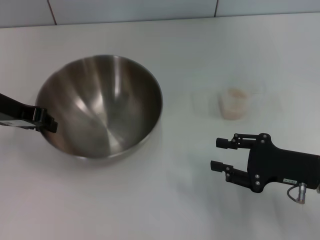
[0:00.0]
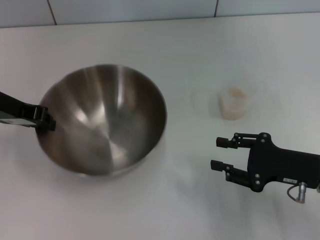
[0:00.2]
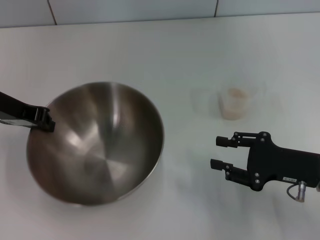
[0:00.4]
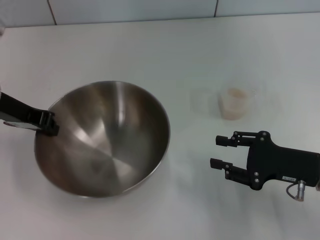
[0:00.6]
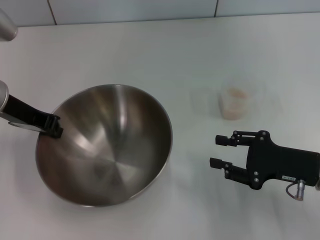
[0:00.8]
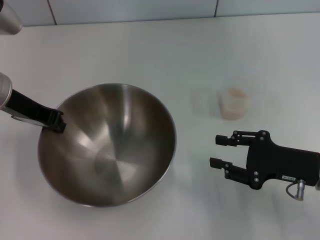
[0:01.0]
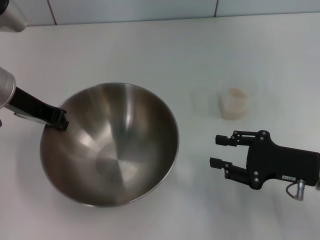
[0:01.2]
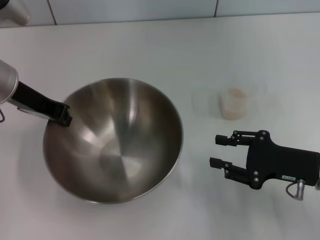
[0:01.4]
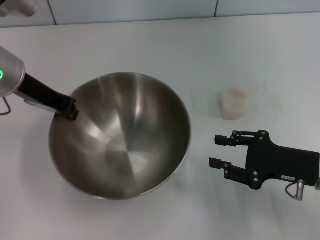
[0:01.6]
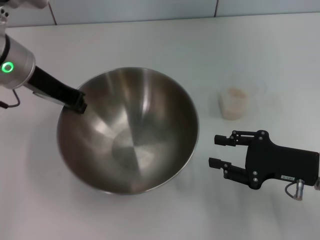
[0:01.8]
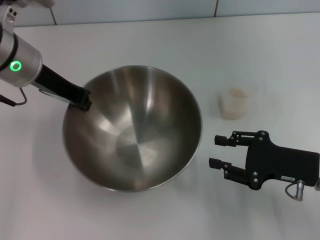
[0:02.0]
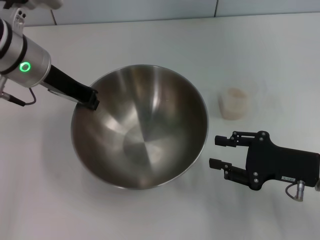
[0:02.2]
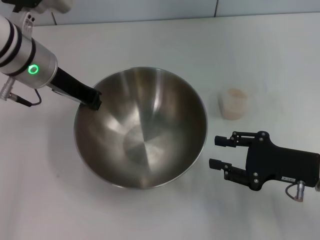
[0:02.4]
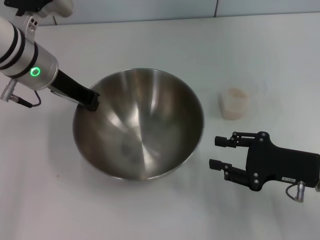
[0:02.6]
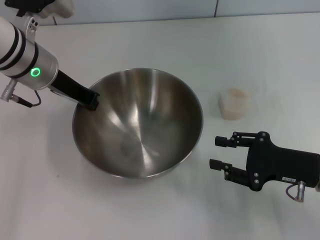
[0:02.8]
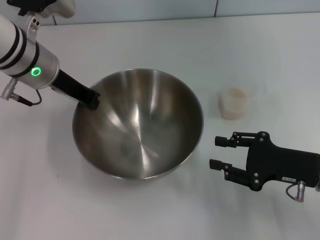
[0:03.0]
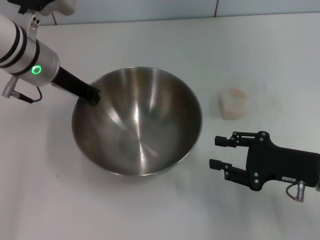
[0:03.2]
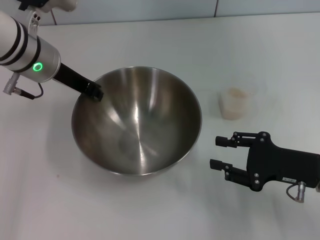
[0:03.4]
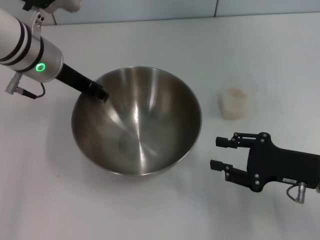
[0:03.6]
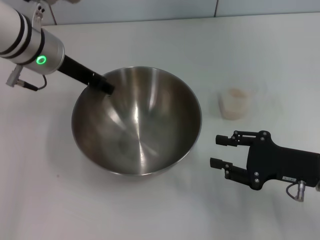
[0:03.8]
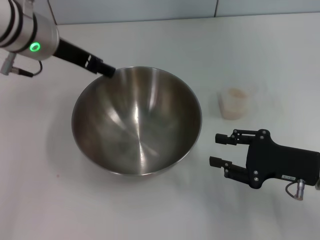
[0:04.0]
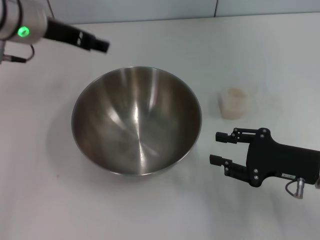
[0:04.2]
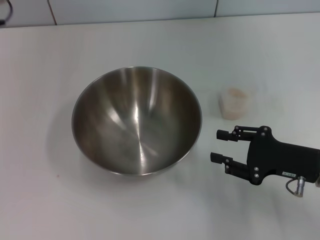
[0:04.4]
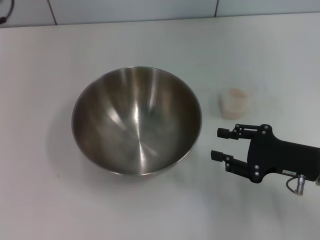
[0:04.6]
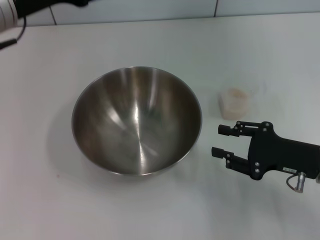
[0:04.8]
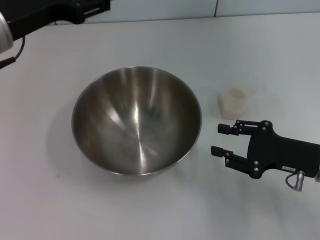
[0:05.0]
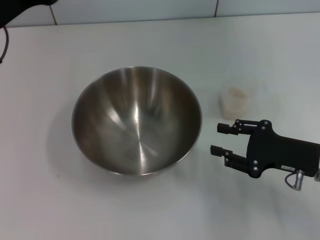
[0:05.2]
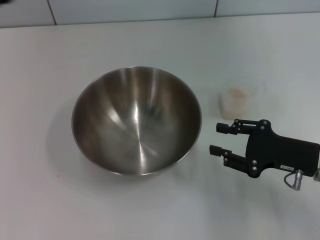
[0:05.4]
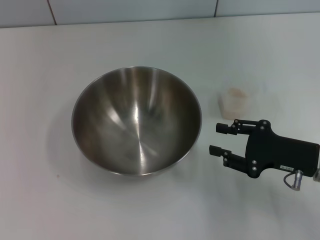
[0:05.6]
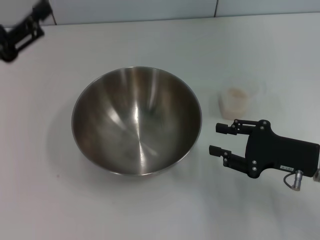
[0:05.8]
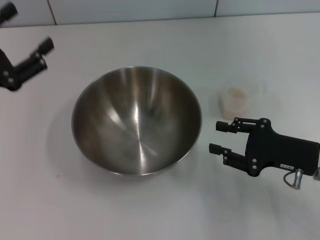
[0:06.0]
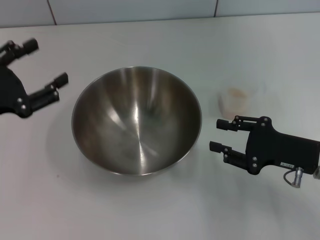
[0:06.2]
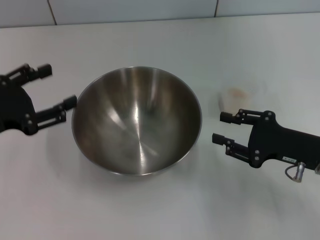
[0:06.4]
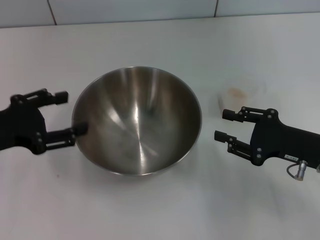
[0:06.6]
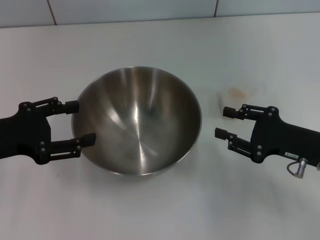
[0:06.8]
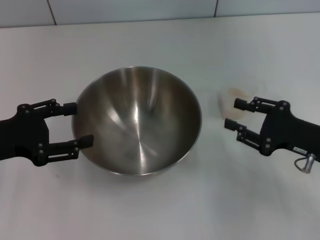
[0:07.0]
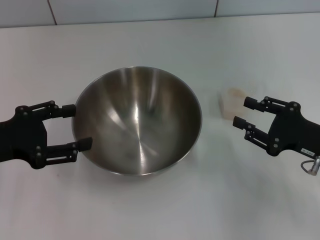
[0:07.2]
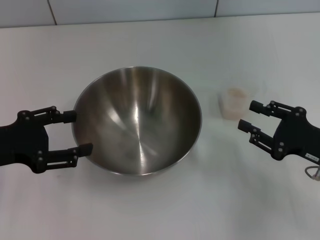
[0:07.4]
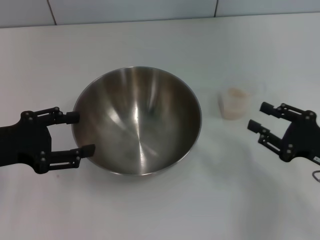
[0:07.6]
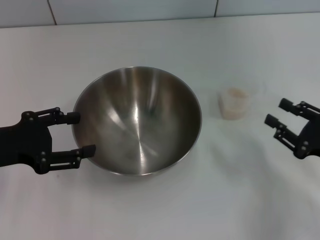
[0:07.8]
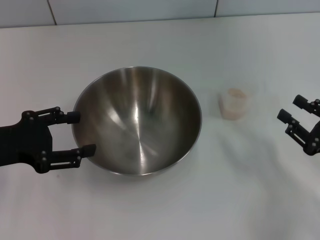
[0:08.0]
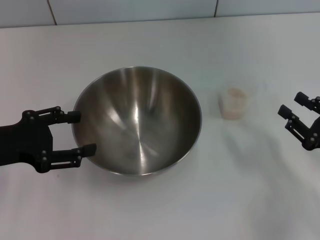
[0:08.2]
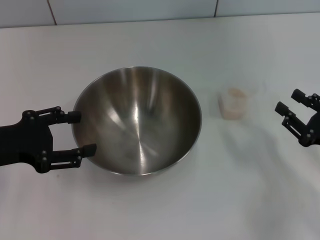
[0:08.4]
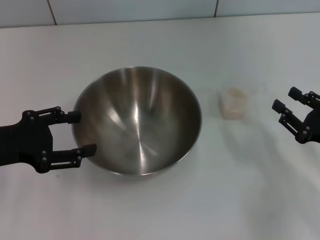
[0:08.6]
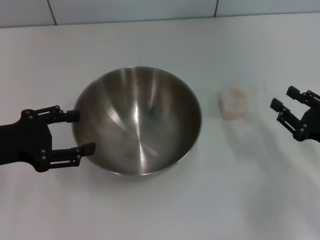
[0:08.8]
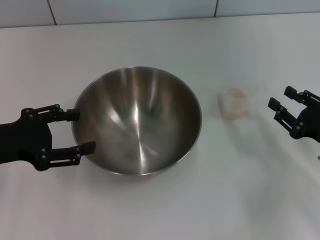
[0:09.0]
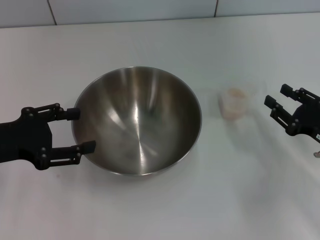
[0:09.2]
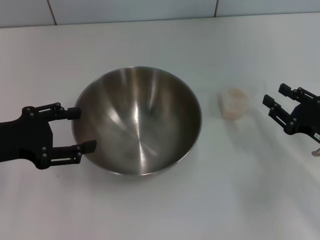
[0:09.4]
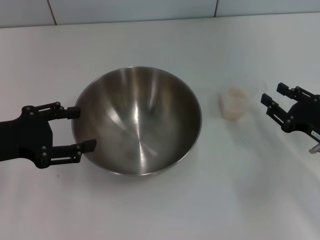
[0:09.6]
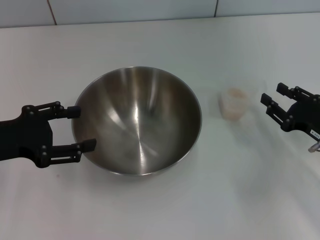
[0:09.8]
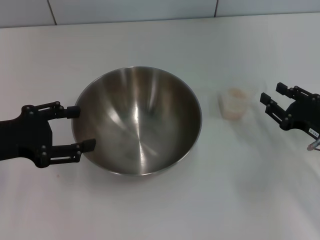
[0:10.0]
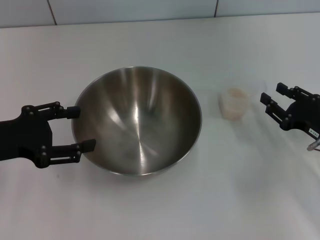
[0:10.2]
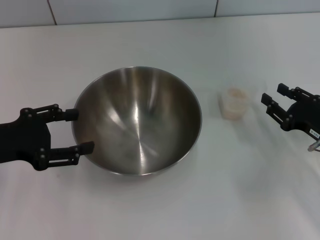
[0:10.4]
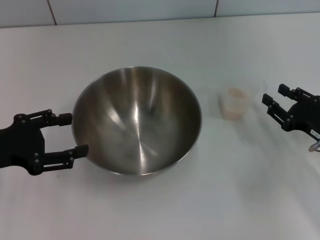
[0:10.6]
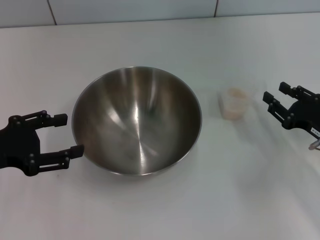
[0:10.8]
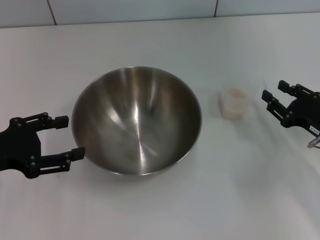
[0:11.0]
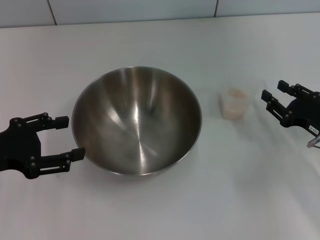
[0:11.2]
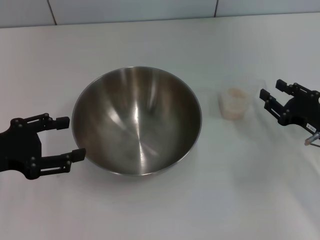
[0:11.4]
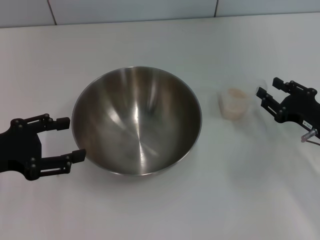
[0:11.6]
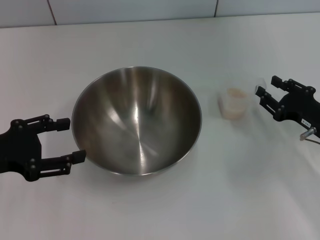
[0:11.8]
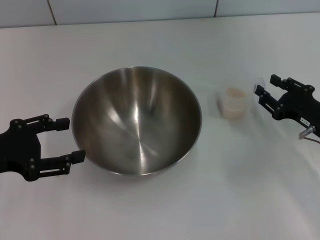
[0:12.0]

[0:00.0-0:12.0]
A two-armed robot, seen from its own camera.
Task of the whole recording: Place the bowl in the middle of the table with one hand and pour the rice from the grain cup into it with the other hand.
Step, 0:01.6 to 0:04.0: Place the bowl in the center of view with the left gripper.
0:00.0 to 0:01.6: The left gripper heads to the right, covering about 5 cm, and closes.
0:03.0 to 0:04.4: The left gripper travels upward by approximately 10 cm, and opens up.
0:04.4 to 0:06.0: The left gripper goes roughly 20 cm downward, backward and to the left.
0:07.6 to 0:10.4: There are only small adjustments of the grippers.
0:10.4 to 0:12.0: The grippers stay close to where they were, moving slightly.

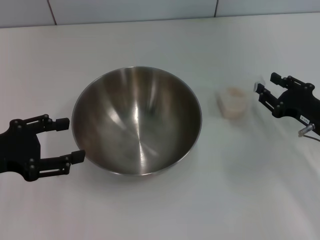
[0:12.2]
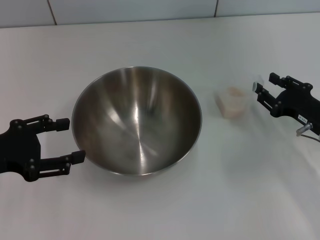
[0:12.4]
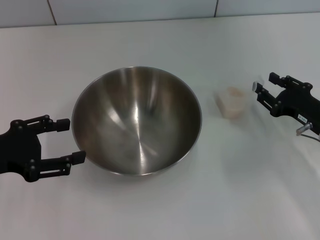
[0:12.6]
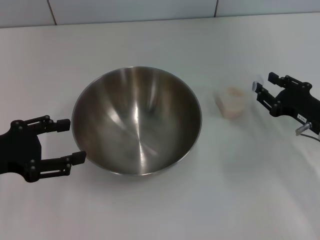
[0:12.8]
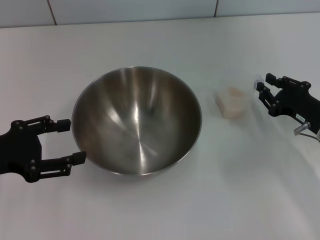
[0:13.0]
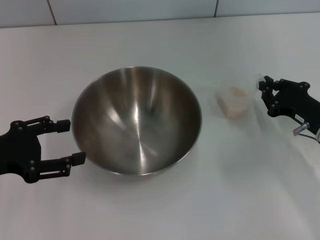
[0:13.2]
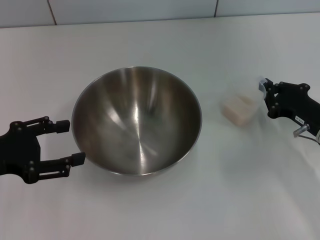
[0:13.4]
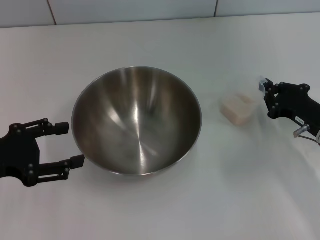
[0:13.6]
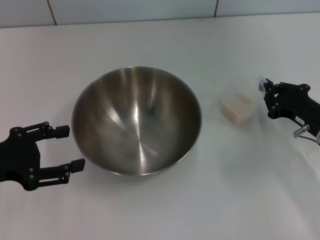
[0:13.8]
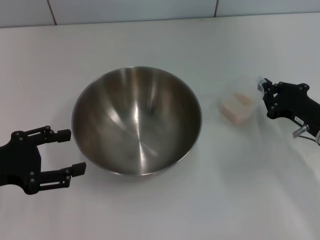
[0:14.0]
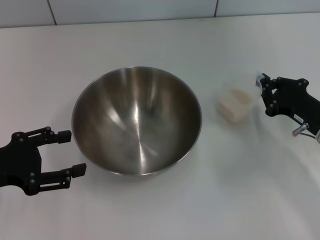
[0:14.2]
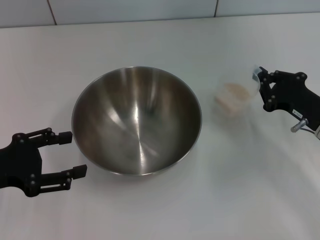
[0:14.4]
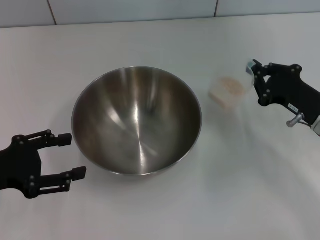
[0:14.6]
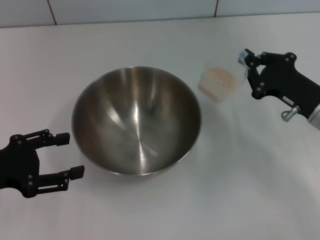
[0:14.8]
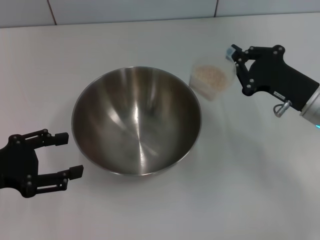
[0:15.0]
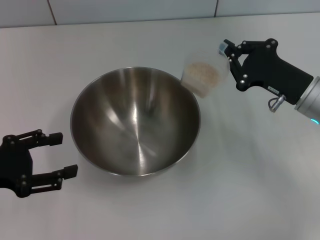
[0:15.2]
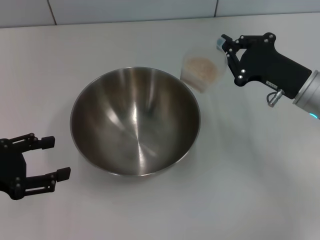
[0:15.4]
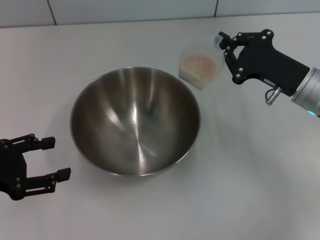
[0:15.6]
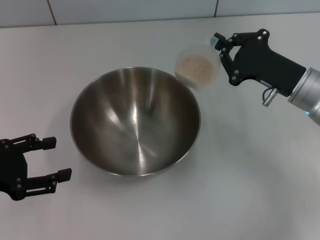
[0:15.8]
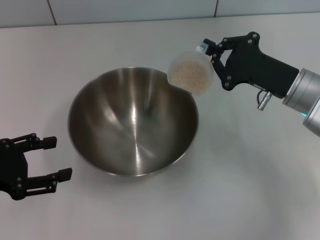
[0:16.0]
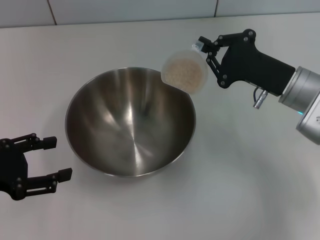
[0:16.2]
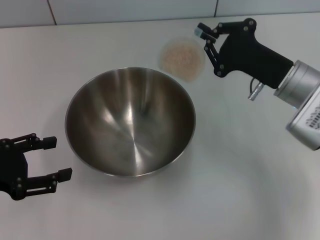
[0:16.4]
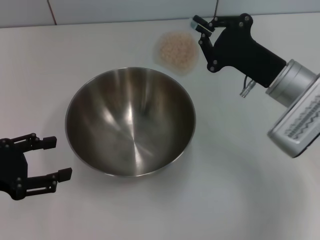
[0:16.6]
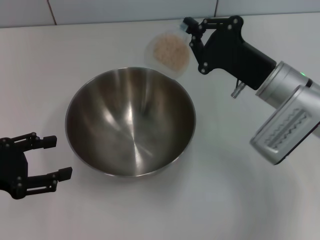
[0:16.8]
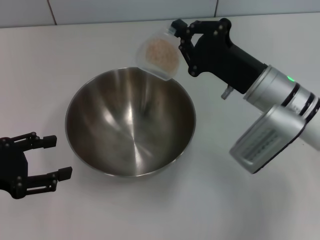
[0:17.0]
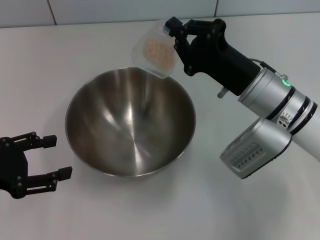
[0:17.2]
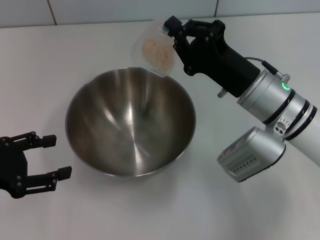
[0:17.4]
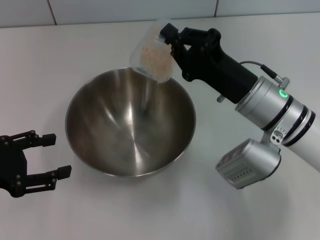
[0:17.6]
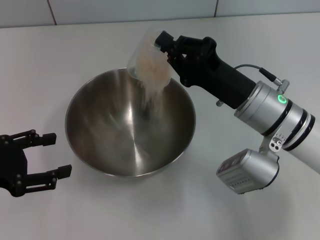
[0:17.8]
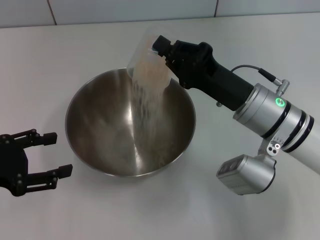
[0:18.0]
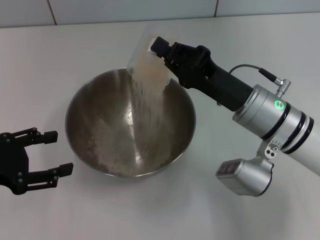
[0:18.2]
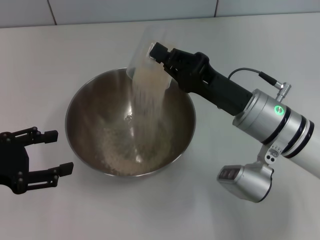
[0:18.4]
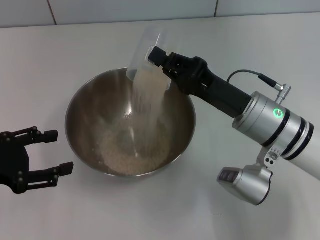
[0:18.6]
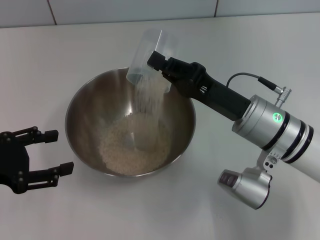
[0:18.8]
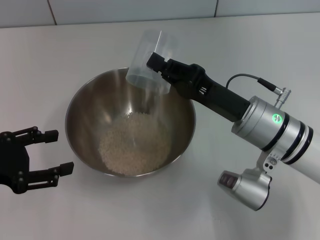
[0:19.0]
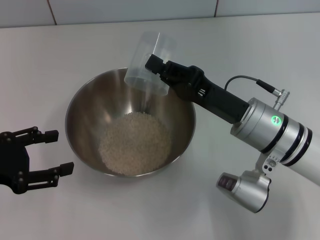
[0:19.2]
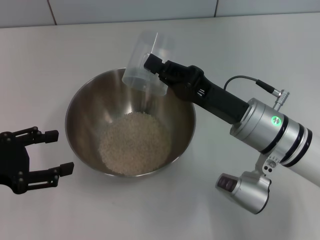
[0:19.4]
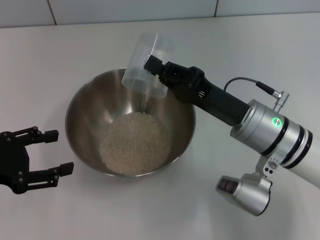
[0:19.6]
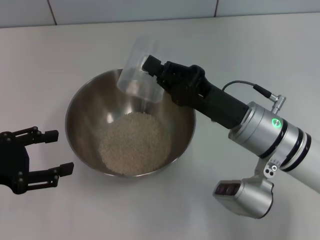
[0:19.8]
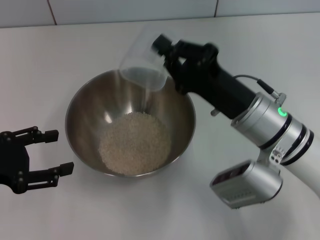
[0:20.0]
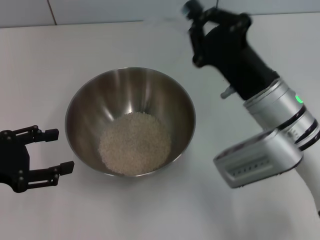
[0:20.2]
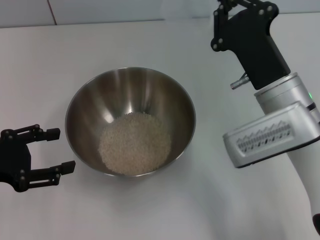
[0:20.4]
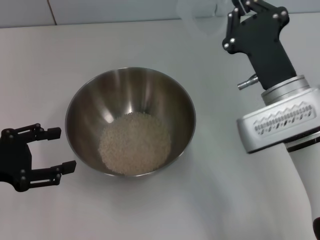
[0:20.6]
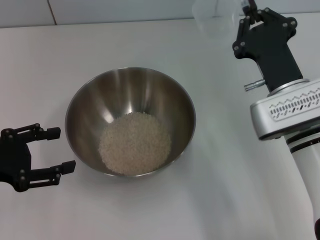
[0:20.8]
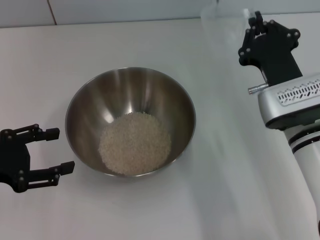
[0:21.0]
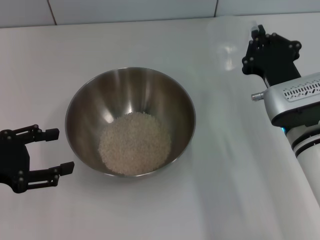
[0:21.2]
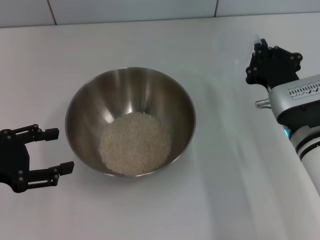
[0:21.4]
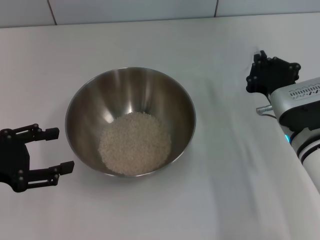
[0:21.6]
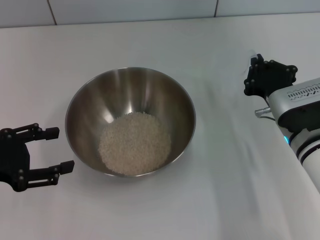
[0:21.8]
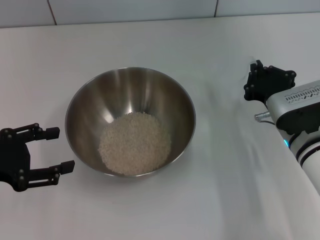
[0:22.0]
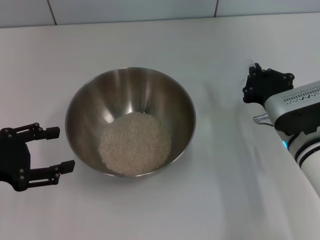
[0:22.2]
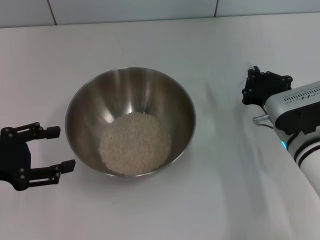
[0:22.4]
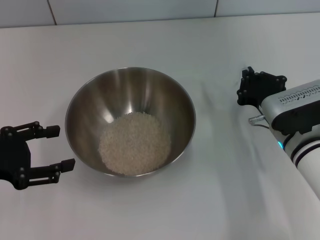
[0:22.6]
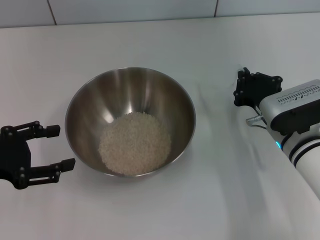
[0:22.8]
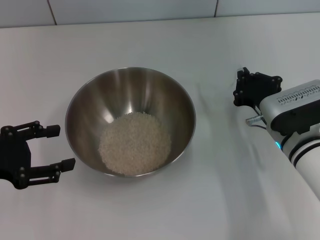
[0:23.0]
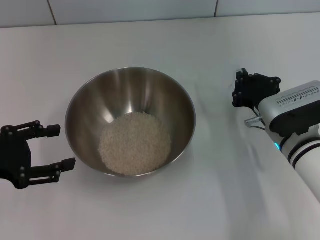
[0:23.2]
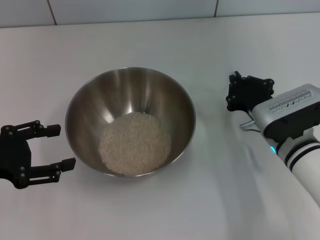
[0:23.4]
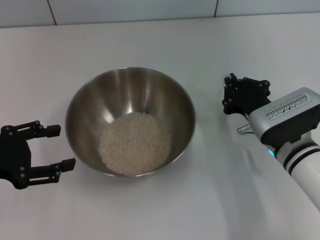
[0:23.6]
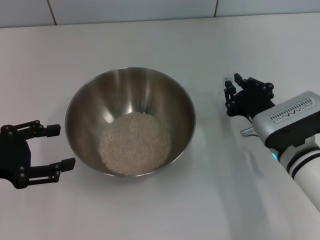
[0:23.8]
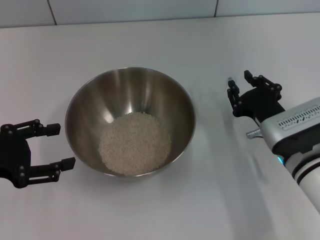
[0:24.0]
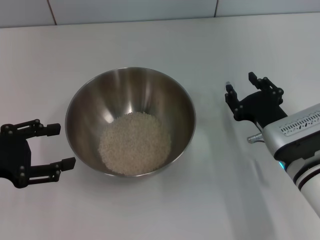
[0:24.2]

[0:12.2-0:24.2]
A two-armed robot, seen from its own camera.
Task of the whole recording: Place the bowl in the middle of the table with one hand and pour the rice from the grain cup into it with the other hand.
Step, 0:12.2 to 0:14.6: Pick up the cup with rice in it with the right gripper.
Step, 0:14.8 to 0:20.0: Pour the rice from the cup into the bowl with the right gripper.
0:12.2 to 0:13.8: The right gripper closes up.
0:13.8 to 0:15.2: The right gripper is displaced upward by roughly 5 cm.
0:15.2 to 0:16.6: The right gripper shifts by about 5 cm.
0:16.6 to 0:18.2: The right gripper shifts approximately 5 cm to the left.
0:18.2 to 0:19.8: There are only small adjustments of the grippers.
0:21.2 to 0:22.6: The grippers make only small movements.
0:22.6 to 0:24.2: The right gripper opens its fingers.
